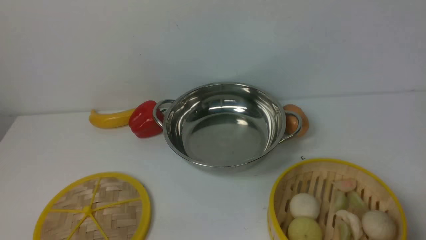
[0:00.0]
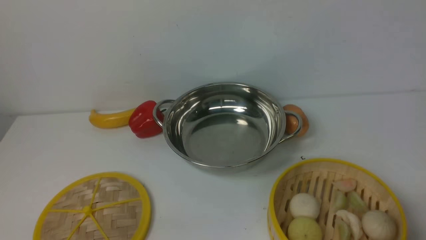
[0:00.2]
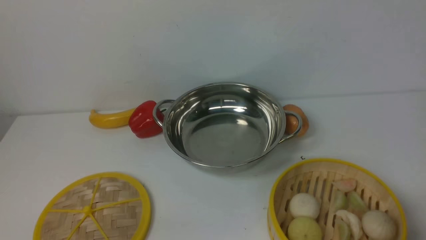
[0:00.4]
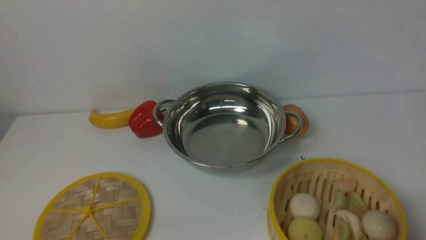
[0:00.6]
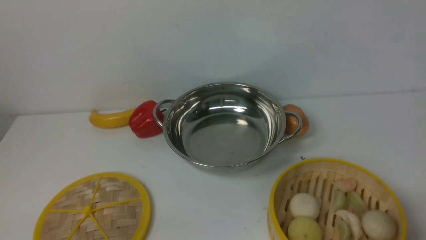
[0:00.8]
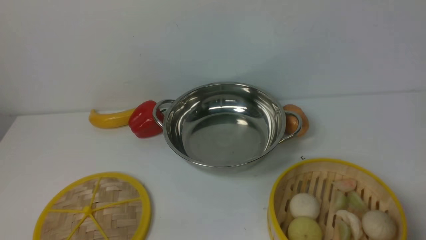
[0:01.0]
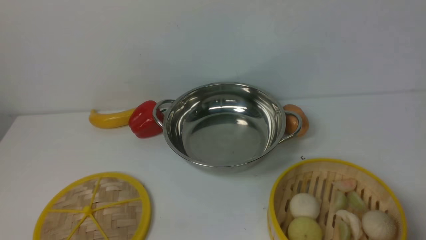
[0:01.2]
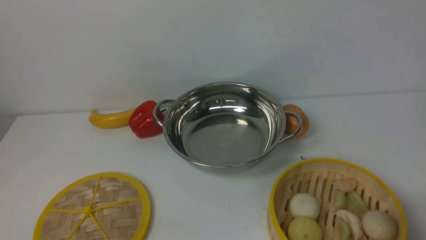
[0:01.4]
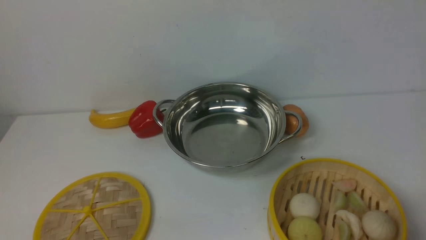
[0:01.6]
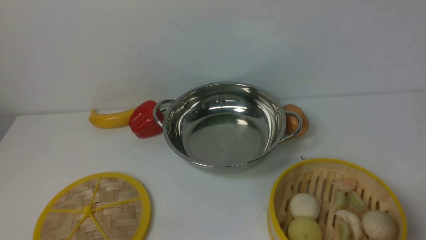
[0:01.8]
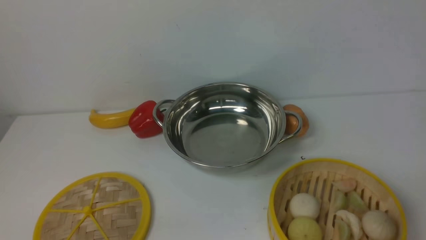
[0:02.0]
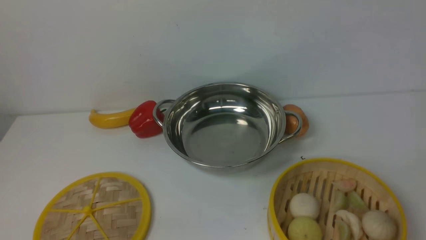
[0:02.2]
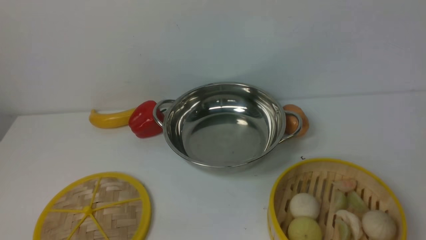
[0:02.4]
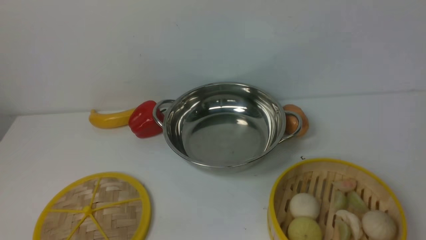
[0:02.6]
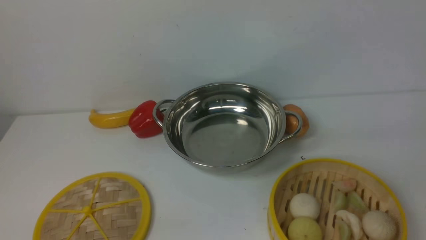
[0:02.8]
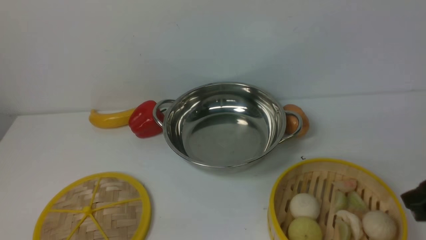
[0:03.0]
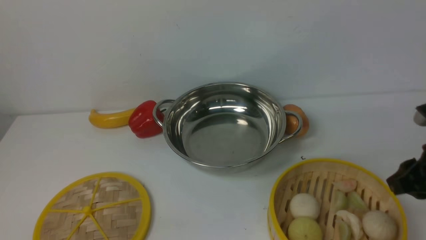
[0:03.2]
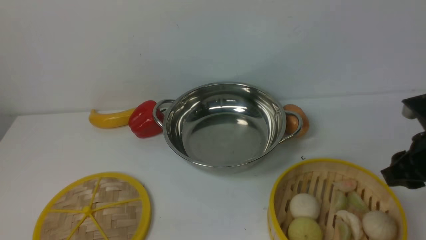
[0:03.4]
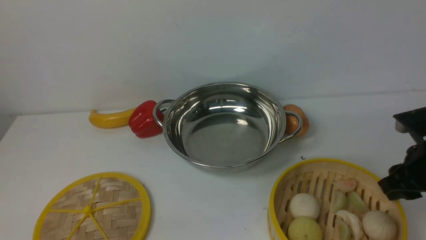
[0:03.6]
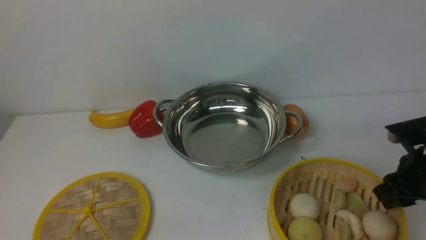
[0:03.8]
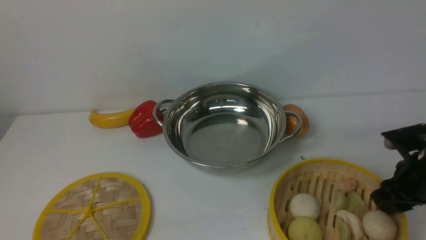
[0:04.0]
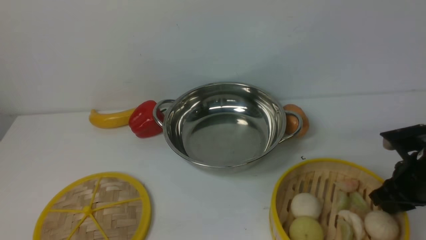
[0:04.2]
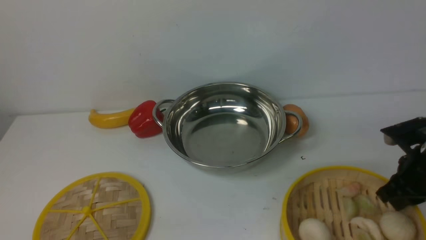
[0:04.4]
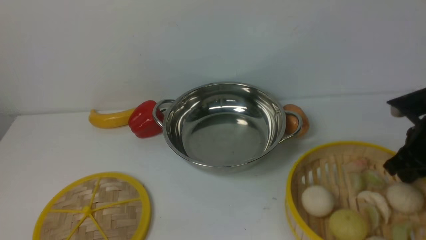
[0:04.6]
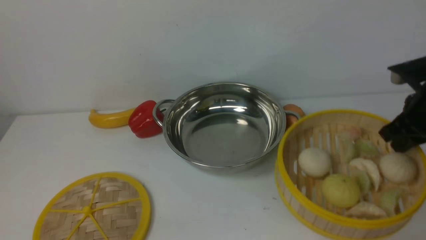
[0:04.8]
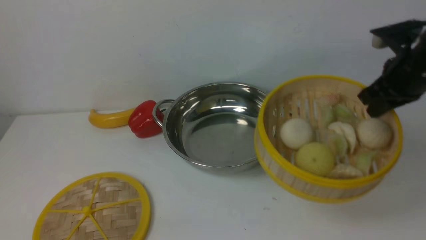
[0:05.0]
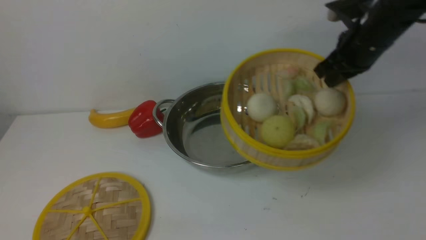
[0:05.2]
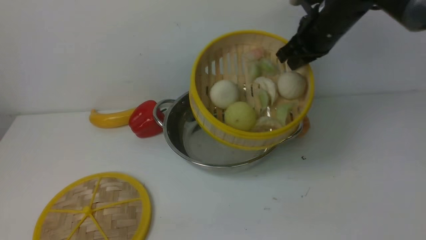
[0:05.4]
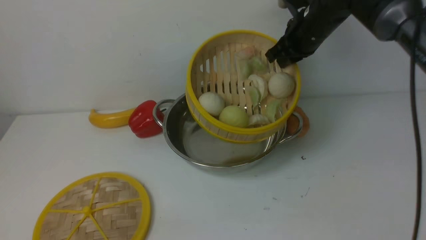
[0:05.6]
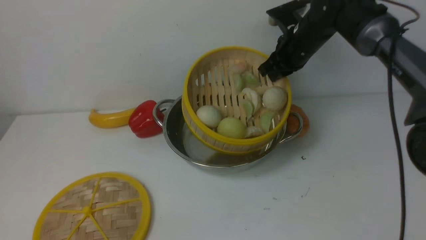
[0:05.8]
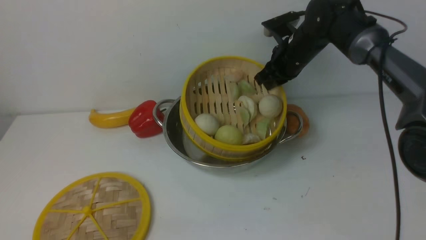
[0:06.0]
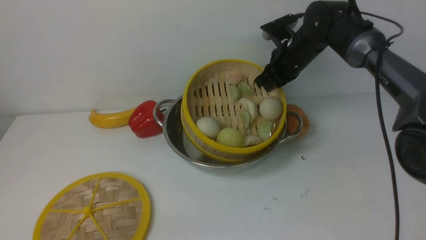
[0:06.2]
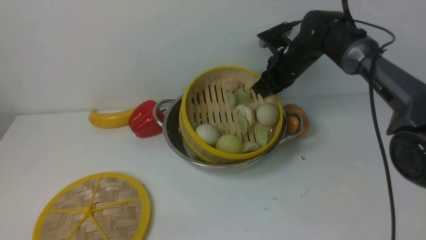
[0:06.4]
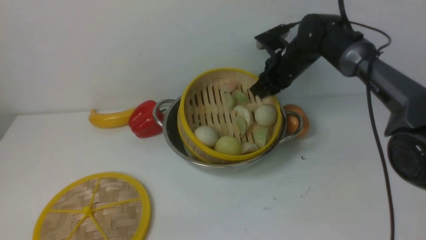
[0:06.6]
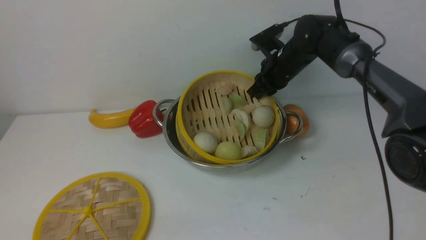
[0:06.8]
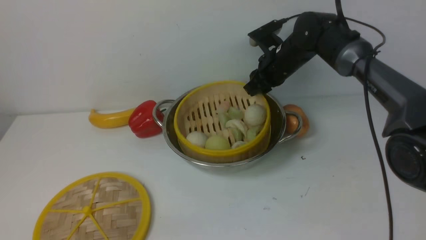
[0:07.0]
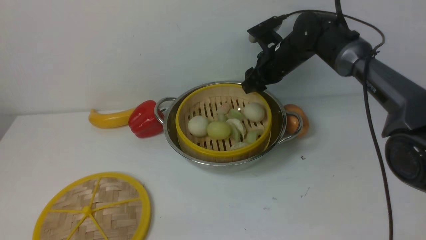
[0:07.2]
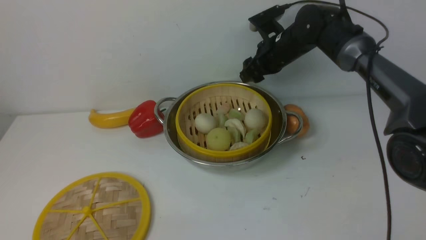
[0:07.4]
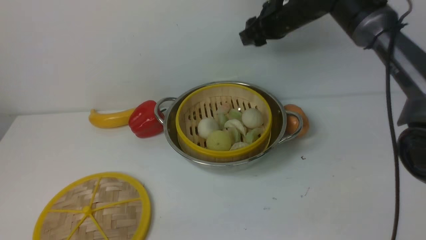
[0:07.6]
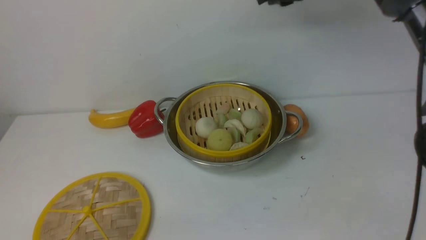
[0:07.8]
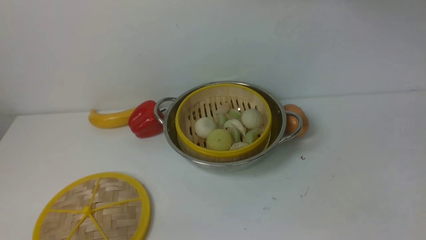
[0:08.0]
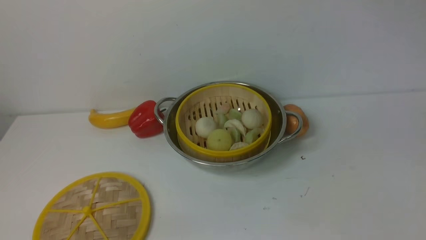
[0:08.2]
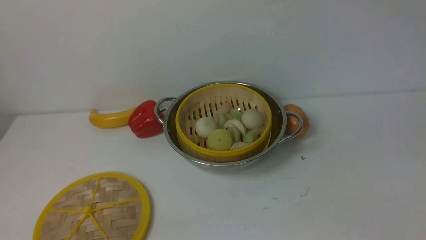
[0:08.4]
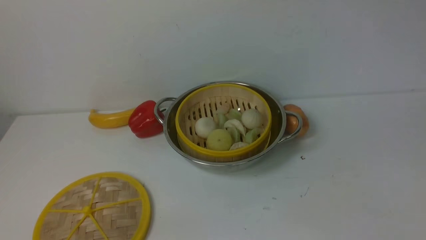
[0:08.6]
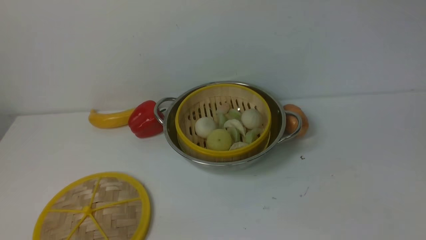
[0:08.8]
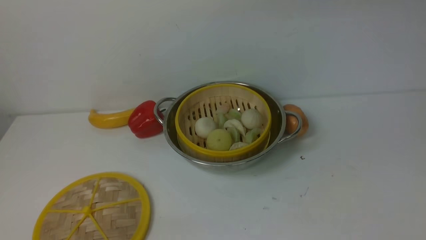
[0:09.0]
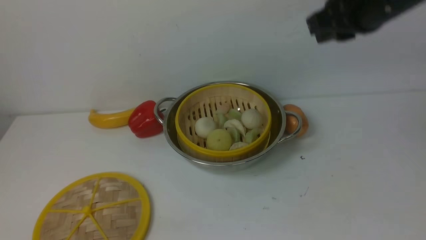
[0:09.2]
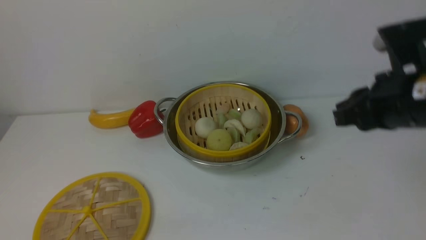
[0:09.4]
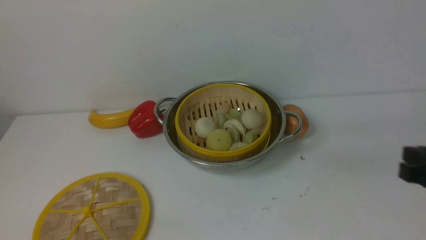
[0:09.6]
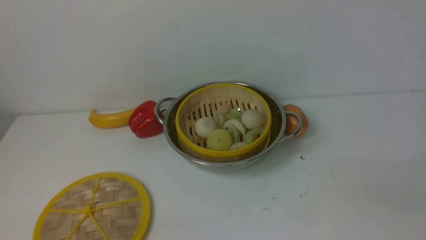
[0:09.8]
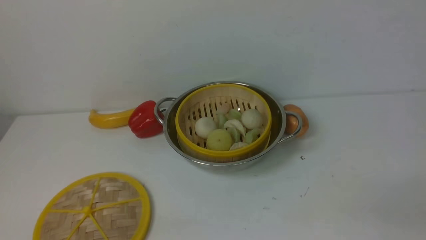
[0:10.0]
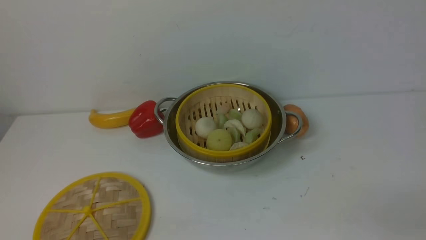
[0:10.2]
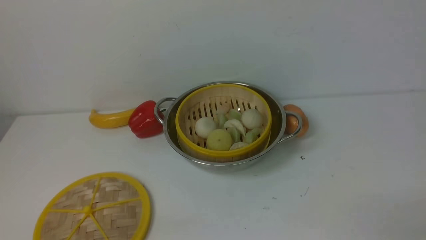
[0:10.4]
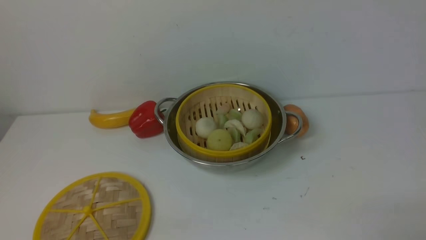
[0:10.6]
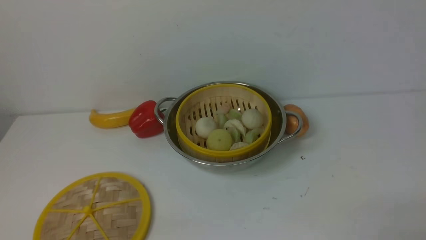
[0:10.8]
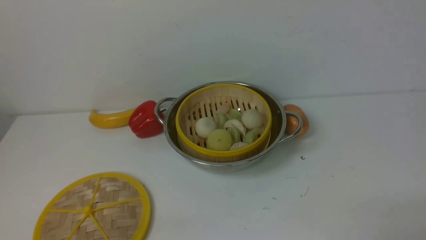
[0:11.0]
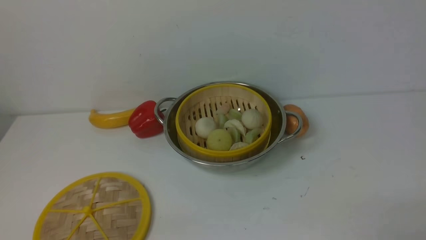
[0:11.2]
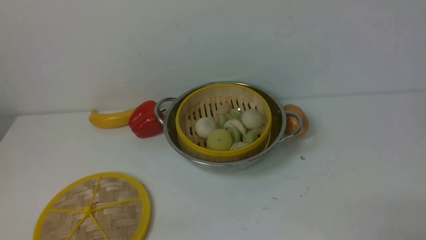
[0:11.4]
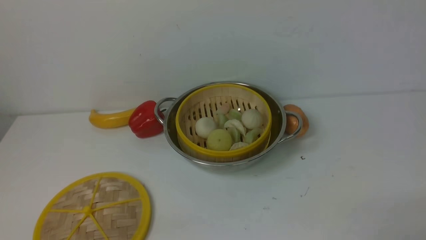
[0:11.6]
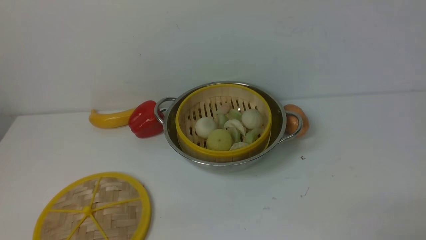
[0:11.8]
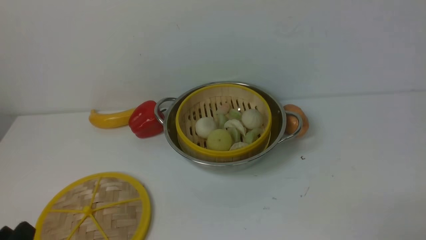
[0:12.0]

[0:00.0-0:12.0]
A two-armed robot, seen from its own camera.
Task of the whole recording: place the steamer in the pot on the white table, and put the lid on the steamer.
Step, 0:00.0 to 0:04.8: use the right arm to lift the steamer closest to it.
Step, 0:05.0 to 0:07.8: use the right arm to put the steamer into the iron steamer pot in the middle.
0:00.0 to 0:01.6: Neither gripper changes place.
0:01.6 to 0:03.0: The right gripper goes about 15 cm forward and upward.
0:03.0 to 0:04.4: The right gripper moves forward and downward, roughly 15 cm, and closes its fingers.
0:04.4 to 0:06.0: The right gripper goes roughly 25 cm forward and to the left.
0:06.0 to 0:07.6: The right gripper travels upward by roughly 10 cm, and opens its fingers.
0:07.6 to 0:09.0: The right gripper travels upward and backward by approximately 20 cm, and closes.

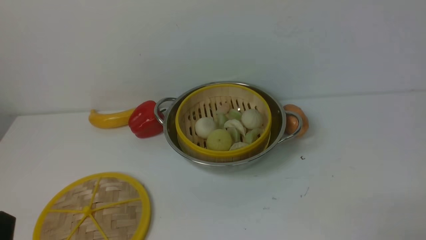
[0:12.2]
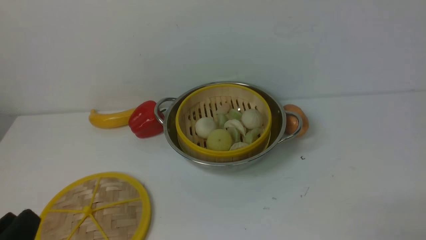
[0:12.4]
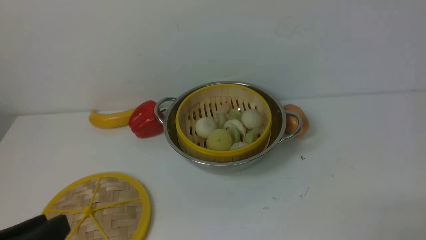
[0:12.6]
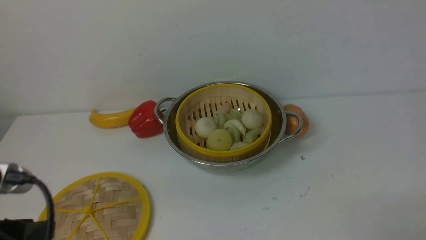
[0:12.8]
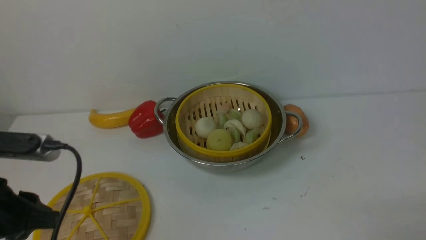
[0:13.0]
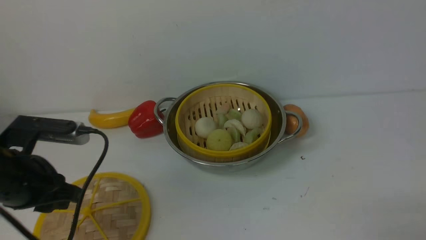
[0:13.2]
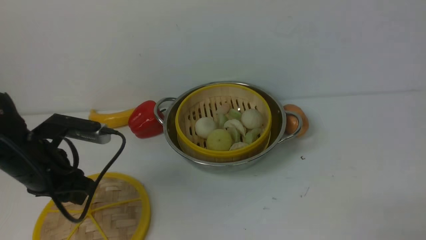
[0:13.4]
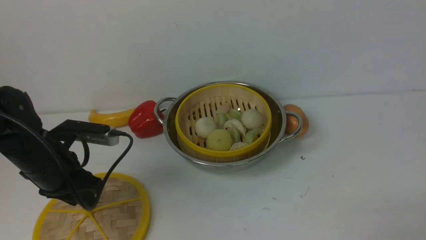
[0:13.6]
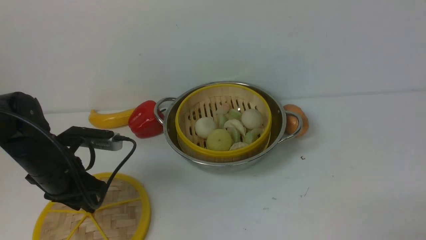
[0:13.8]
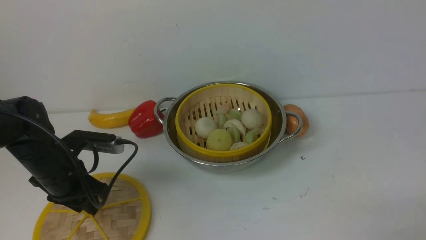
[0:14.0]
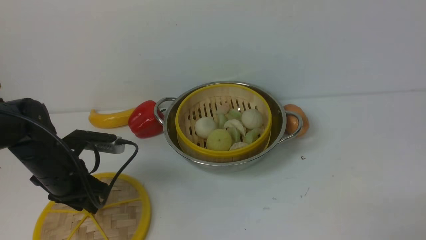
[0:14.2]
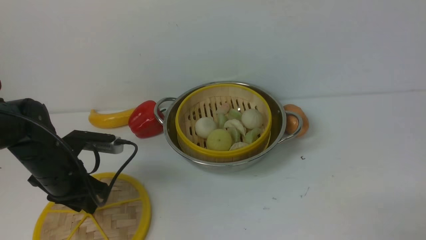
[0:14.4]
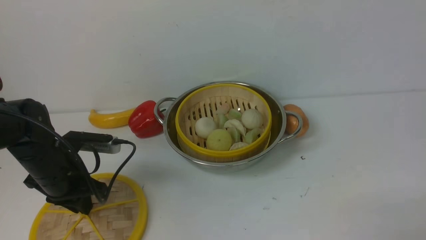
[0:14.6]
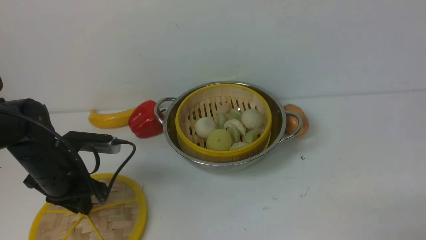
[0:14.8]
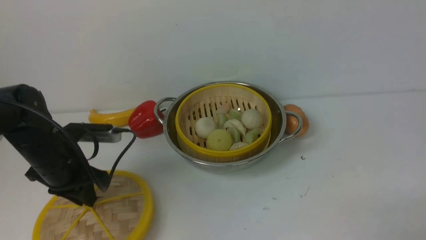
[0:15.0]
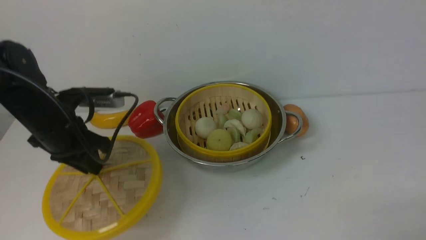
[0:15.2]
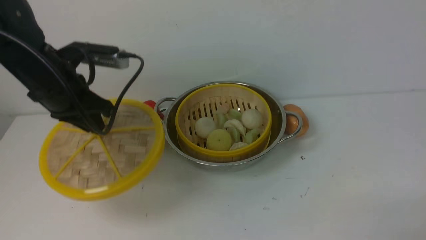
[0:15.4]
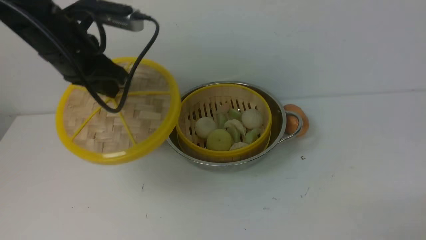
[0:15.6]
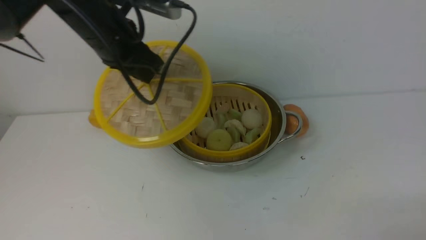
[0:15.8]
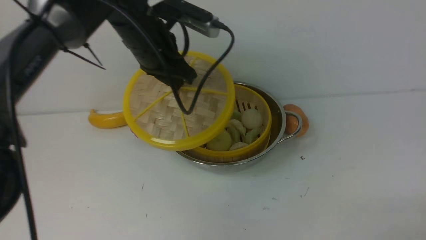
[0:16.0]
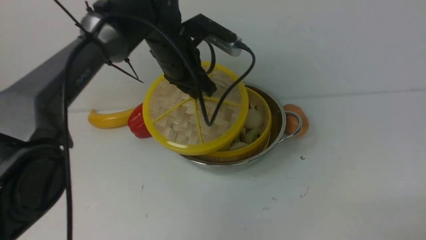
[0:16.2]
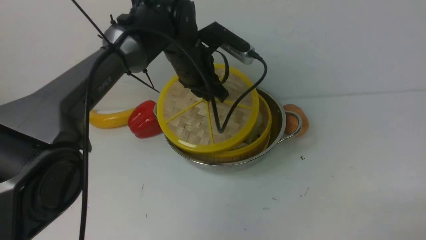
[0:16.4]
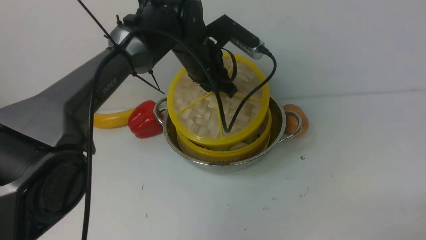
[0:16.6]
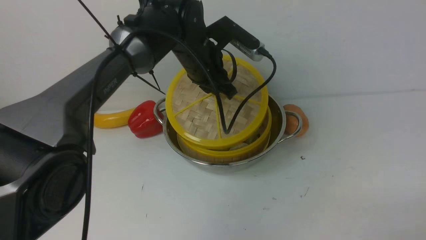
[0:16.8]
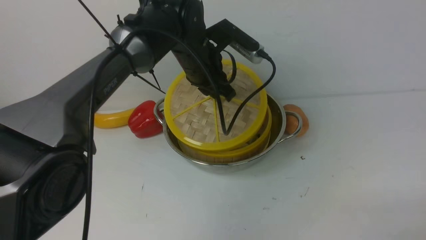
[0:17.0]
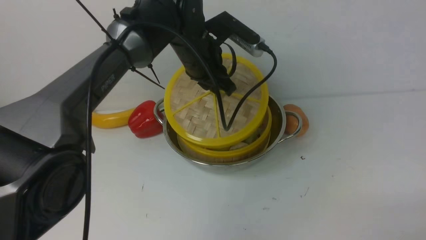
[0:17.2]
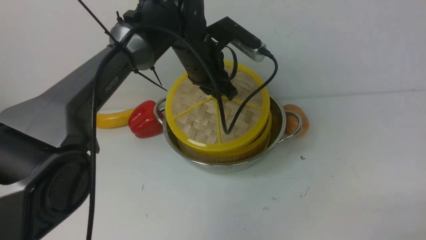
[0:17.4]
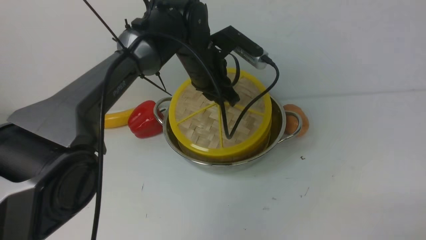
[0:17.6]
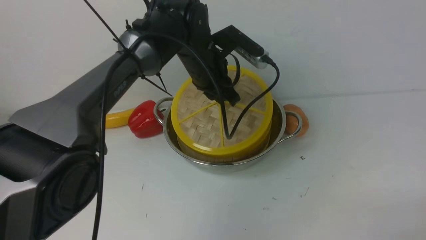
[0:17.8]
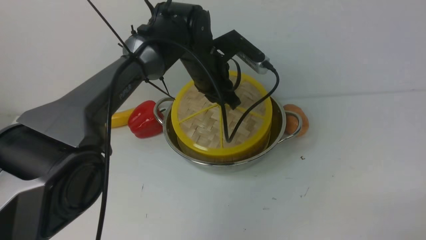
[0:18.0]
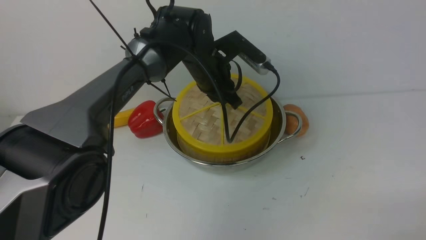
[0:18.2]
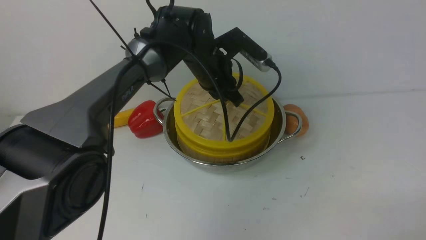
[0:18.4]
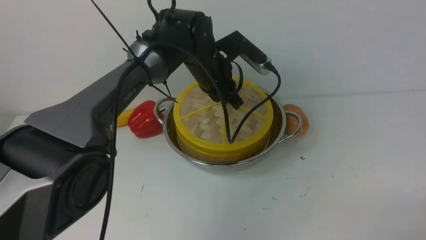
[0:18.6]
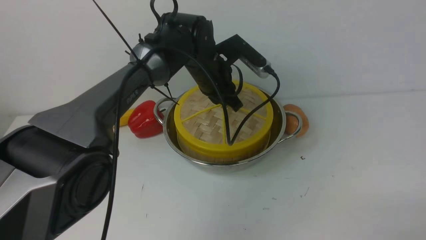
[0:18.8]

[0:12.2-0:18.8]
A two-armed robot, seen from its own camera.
Task of the whole recording: place the steamer in the pot on the white table, and put the lid on the steamer.
Step, 0:12.2 to 0:15.2: use the left arm to lift the lid of the steamer.
0:12.2 to 0:13.8: The left gripper heads forward, covering about 25 cm.
0:13.8 to 0:15.4: The left gripper travels upward and forward by some 15 cm.
0:15.4 to 0:17.2: The left gripper heads to the right and forward, covering approximately 20 cm.
0:17.2 to 0:18.8: The left gripper ends up approximately 5 cm from where it was.
